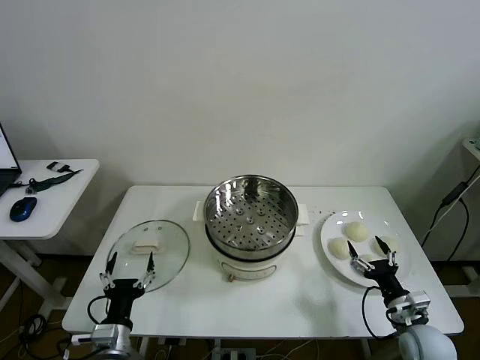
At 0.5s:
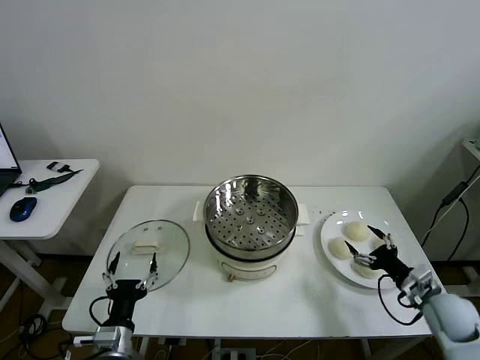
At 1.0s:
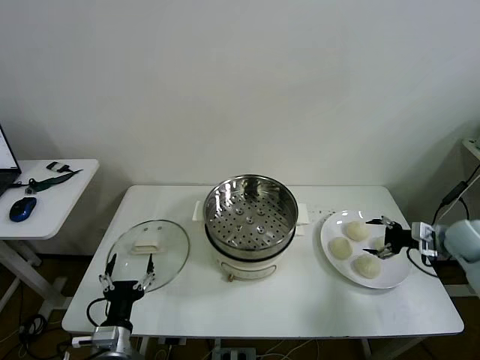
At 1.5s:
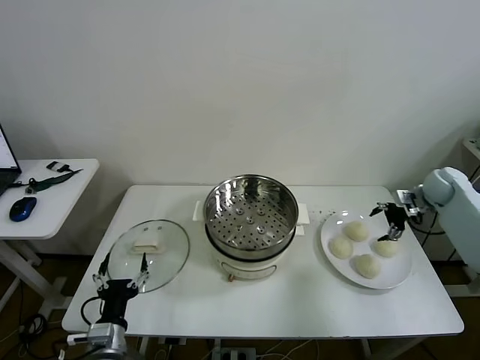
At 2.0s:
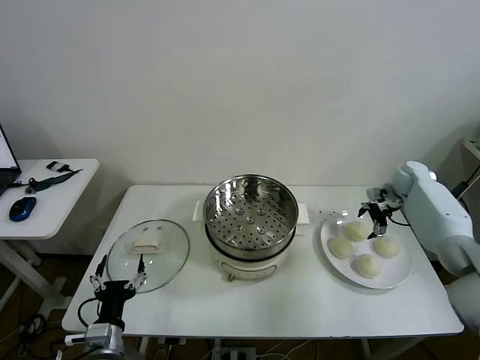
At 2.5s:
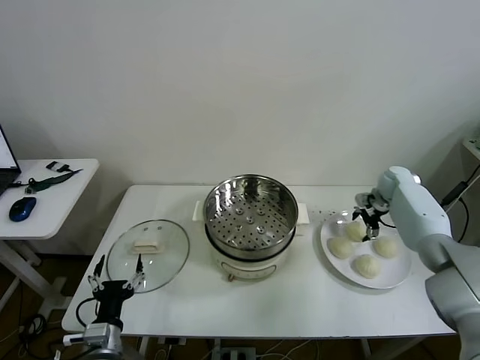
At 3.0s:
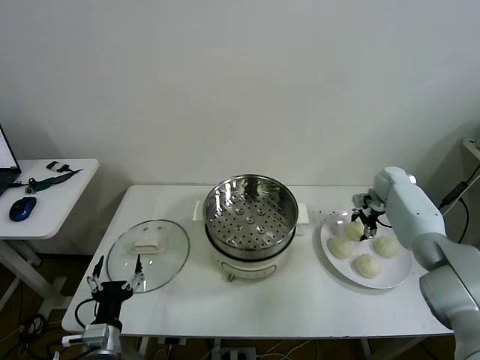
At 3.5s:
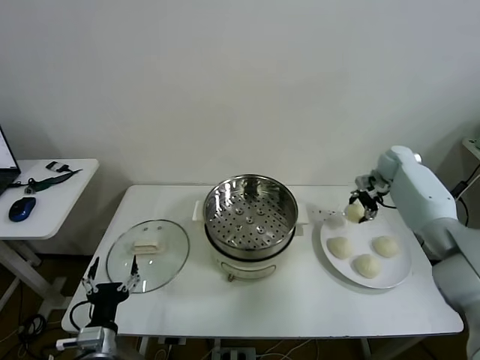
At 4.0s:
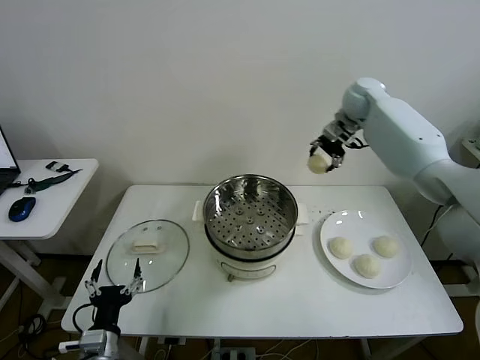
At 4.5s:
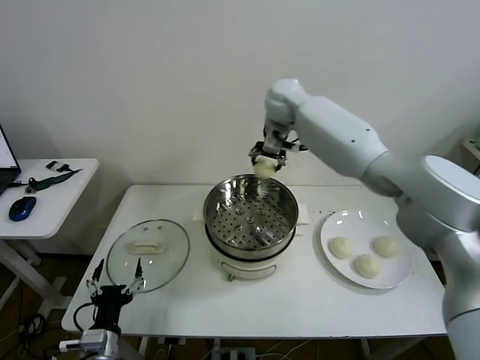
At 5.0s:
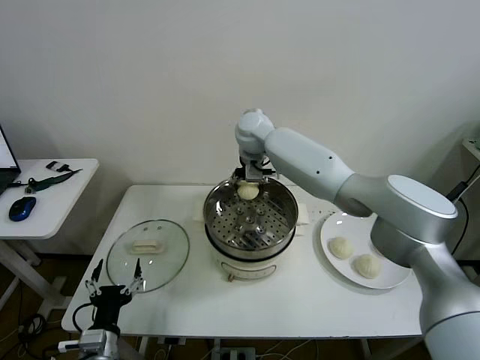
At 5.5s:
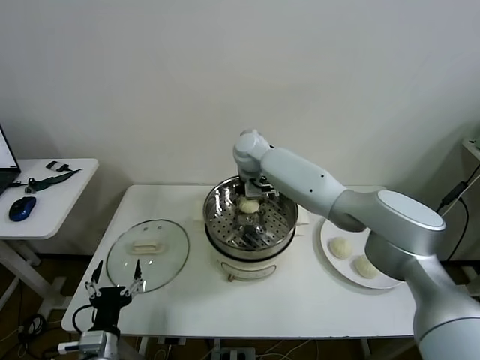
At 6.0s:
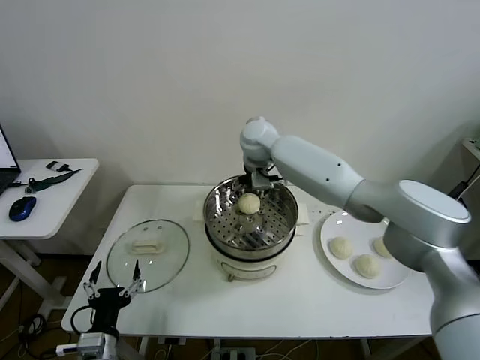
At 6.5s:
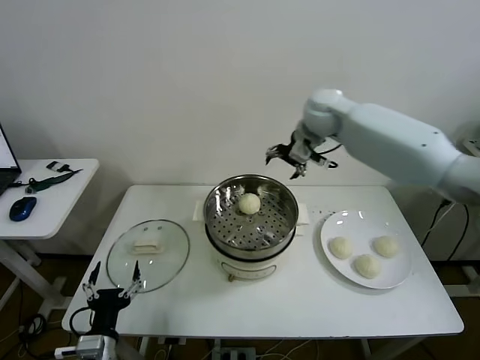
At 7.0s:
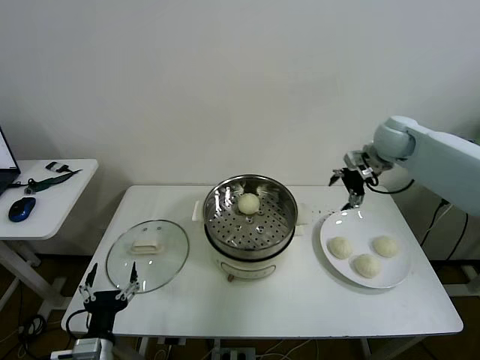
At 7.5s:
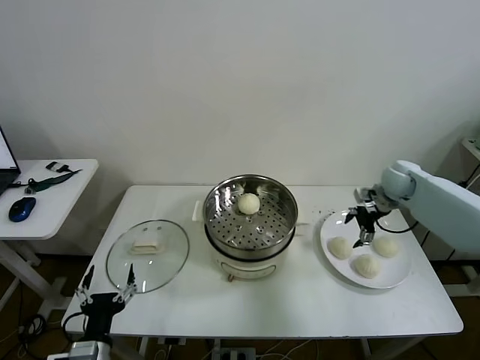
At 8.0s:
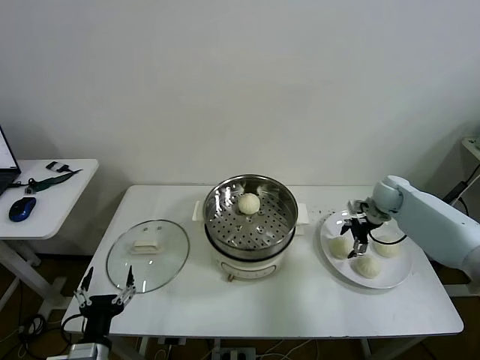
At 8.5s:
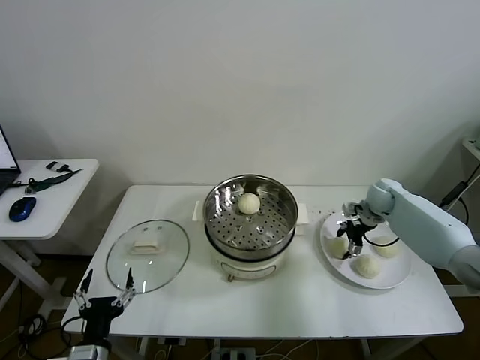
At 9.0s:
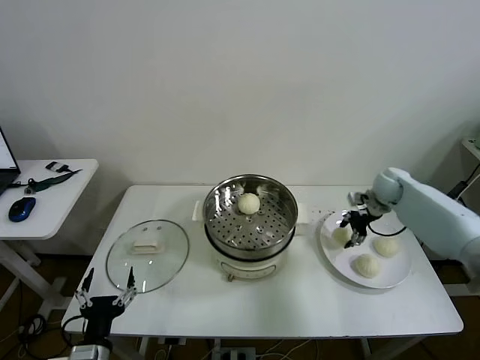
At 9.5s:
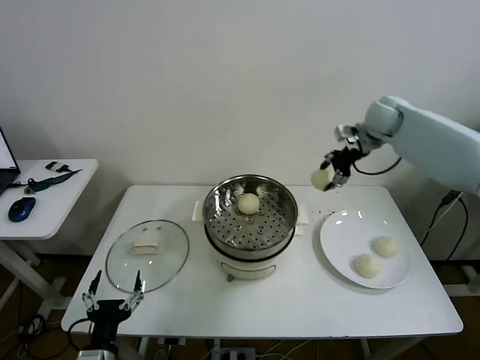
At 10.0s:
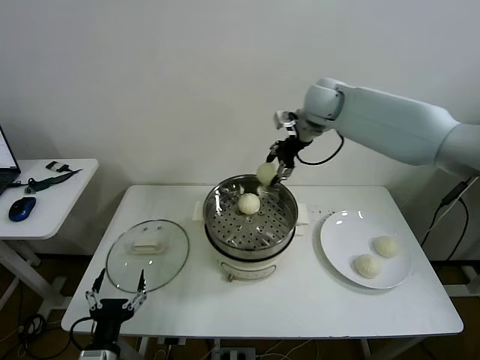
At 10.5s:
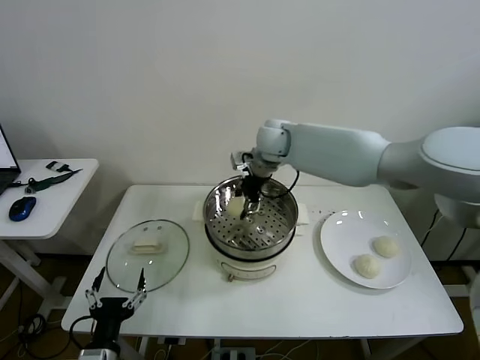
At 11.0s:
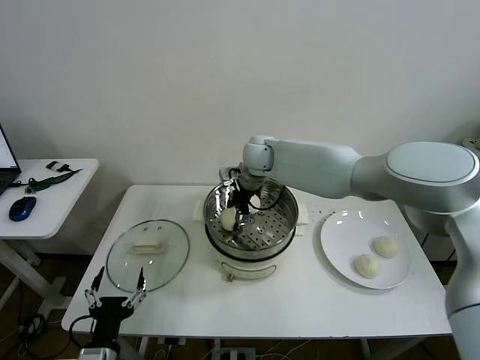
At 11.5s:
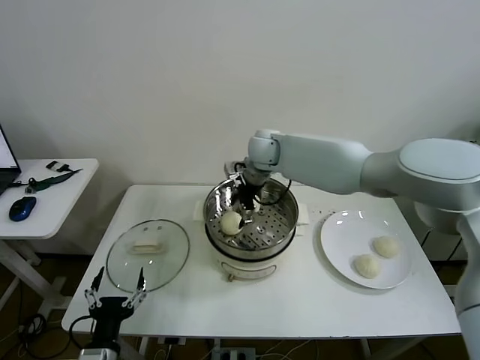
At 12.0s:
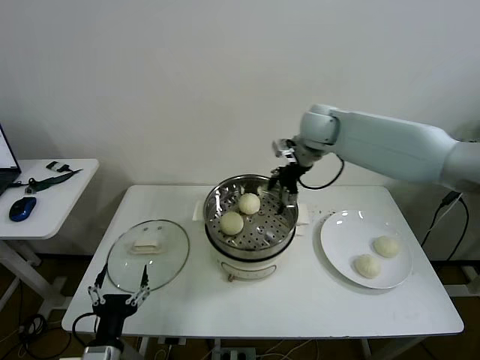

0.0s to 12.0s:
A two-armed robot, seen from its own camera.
Task of the whole recording: take steamed baozi put them in steamer then cover it.
Step, 0.0s to 3.0s: Grasp the baozi in the plate with right gripper.
Step, 3.5s to 5.5s: Place the baozi on the steamer with right gripper.
Step, 6.0s to 8.5s: Grasp the baozi in the plate with right gripper.
Step, 9.0s to 11.0s: Place the baozi on the steamer with right gripper.
2.0s to 4.0s: The right gripper moves upward and to the left, approximately 30 cm, and closes.
4.0s to 6.0s: The right gripper travels to the left by about 20 cm, and opens up.
6.0s to 8.0s: The right gripper travels to the right and downward by some 40 cm.
8.0s to 10.0s: The right gripper travels upward and to the left by roughly 35 cm, and closes its fingers.
10.0s to 12.0s: The right gripper reaches approximately 10 cm to the left, then returns, and opens up.

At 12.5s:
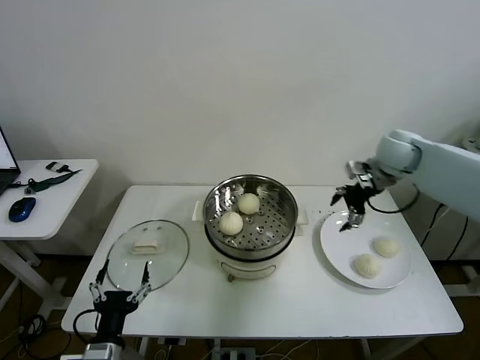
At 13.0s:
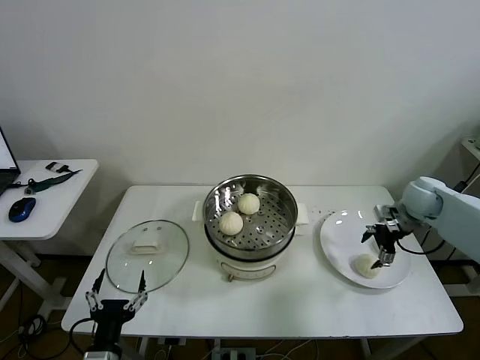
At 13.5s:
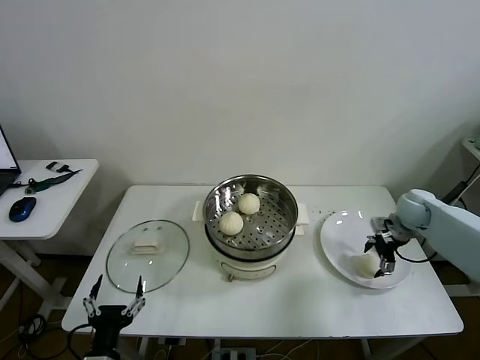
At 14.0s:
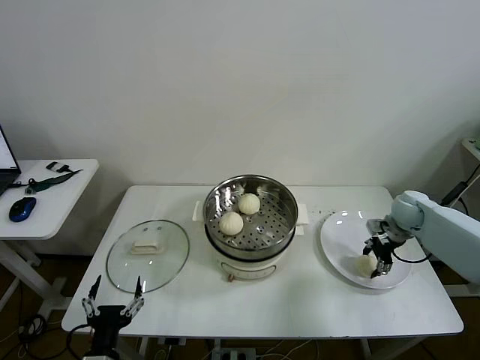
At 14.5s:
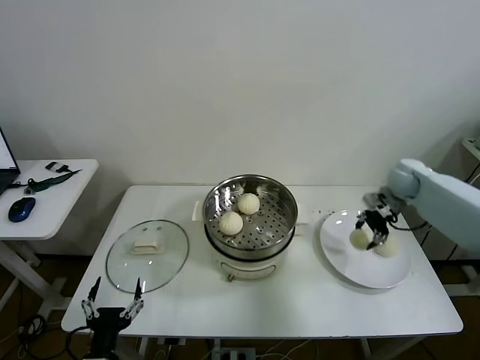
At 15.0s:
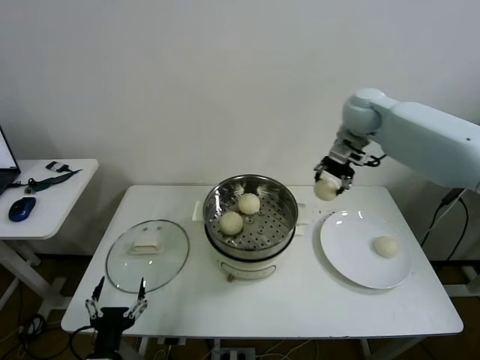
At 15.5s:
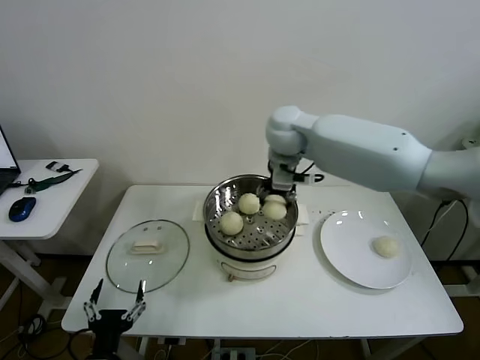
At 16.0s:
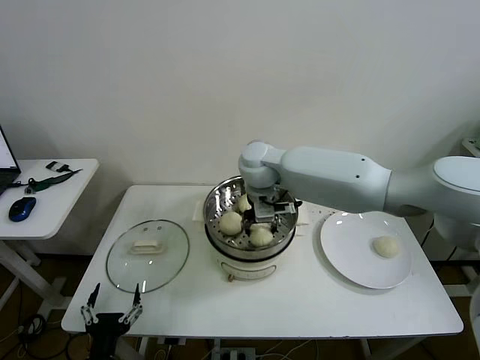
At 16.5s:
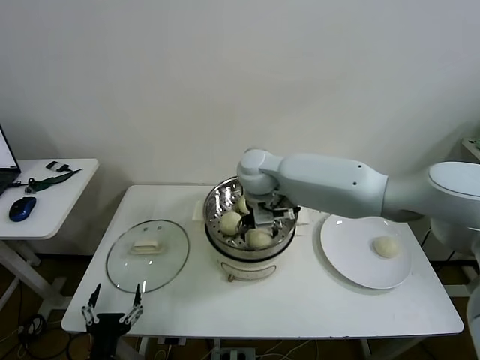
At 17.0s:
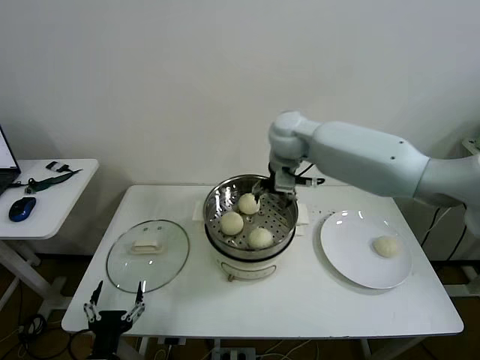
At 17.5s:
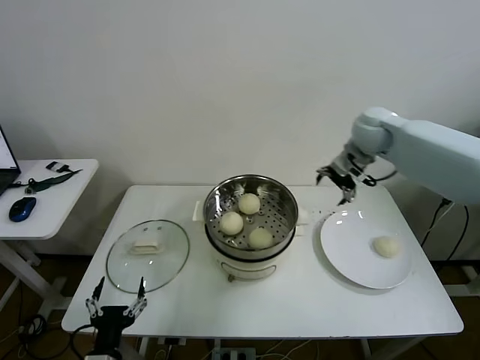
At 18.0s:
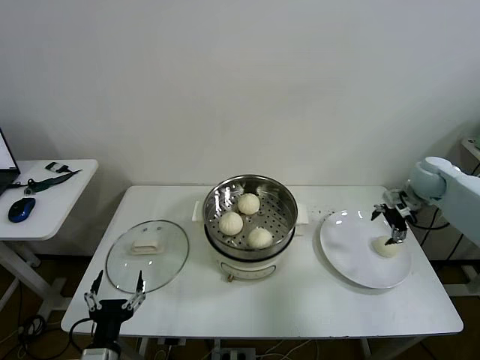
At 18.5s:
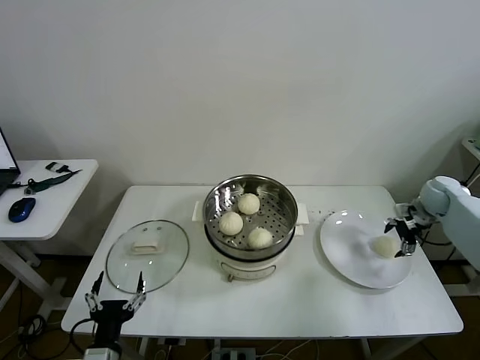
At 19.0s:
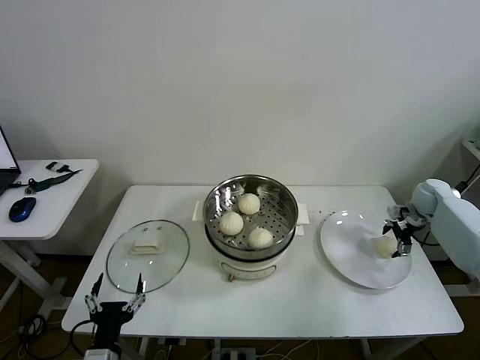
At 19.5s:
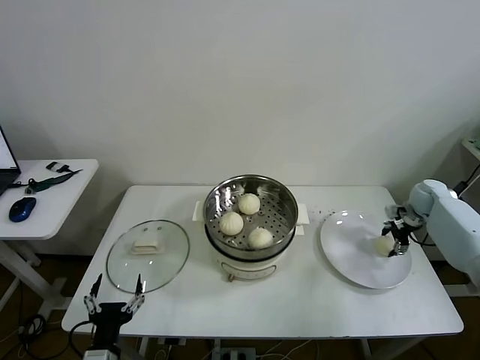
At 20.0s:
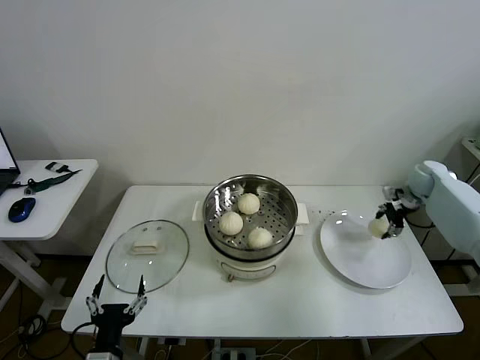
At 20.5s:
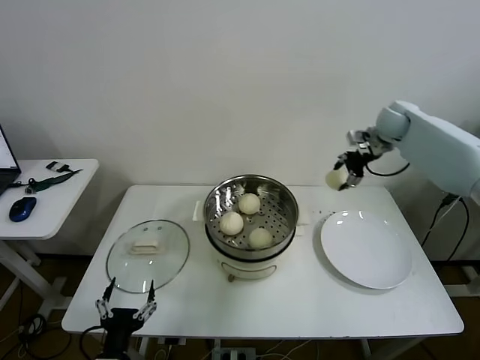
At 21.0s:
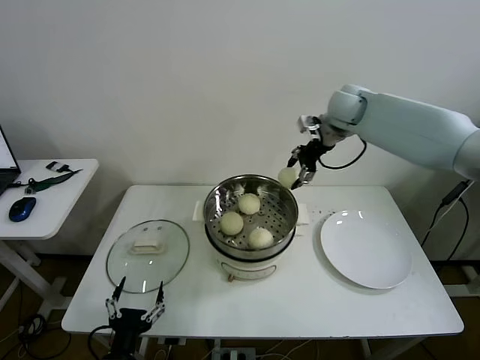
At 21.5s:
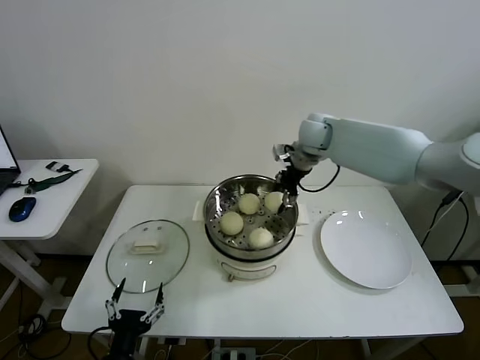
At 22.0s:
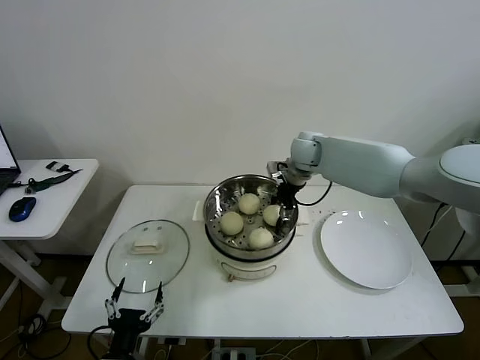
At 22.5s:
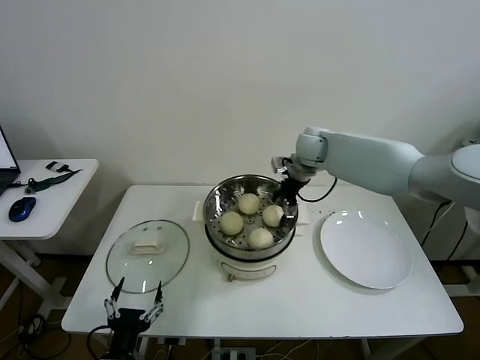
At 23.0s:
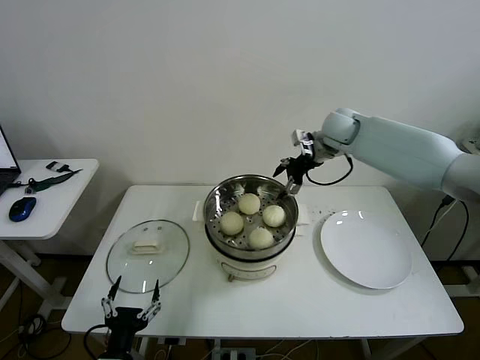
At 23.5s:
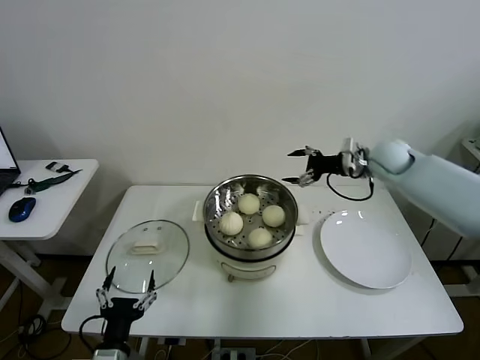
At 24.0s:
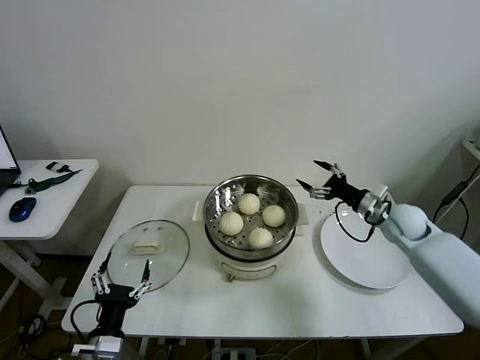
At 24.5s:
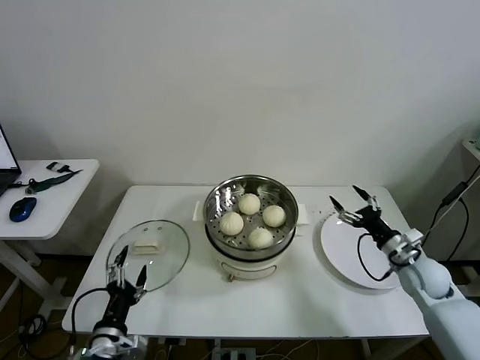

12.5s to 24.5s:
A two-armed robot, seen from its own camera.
Task of the whole recording: take steamed baozi put them in steamer then cover it.
Step, 14.0s to 16.0s: Place the baozi on the steamer with right gripper.
Step, 17.0s to 19.0s: Grasp the baozi in the plate with right gripper.
Step, 20.0s to 22.0s: Place the baozi on the steamer with right gripper.
12.5s to 14.5s: The right gripper heads downward, covering roughly 5 cm, and closes up.
14.5s to 16.5s: The right gripper goes some 35 cm to the left, and opens its fingers.
16.5s to 18.5s: The right gripper travels to the right by roughly 50 cm.
18.5s to 20.5s: The right gripper moves upward, to the left and forward, about 25 cm, and closes up.
20.5s to 22.5s: The right gripper heads to the left, covering some 20 cm, and opens up.
22.5s to 24.5s: The left gripper travels forward by roughly 5 cm. The right gripper moves backward, to the right and downward, some 40 cm.

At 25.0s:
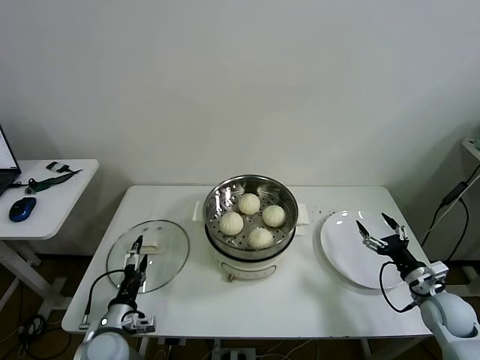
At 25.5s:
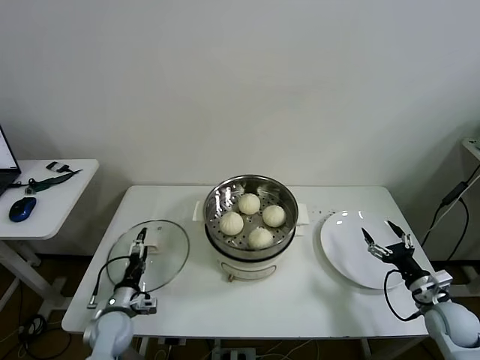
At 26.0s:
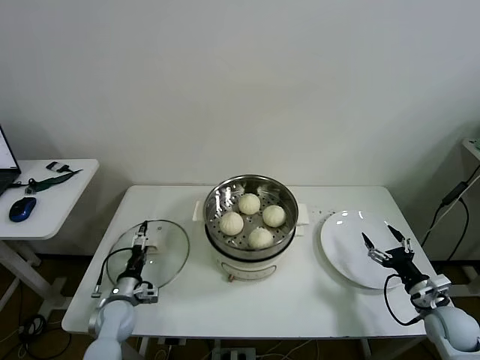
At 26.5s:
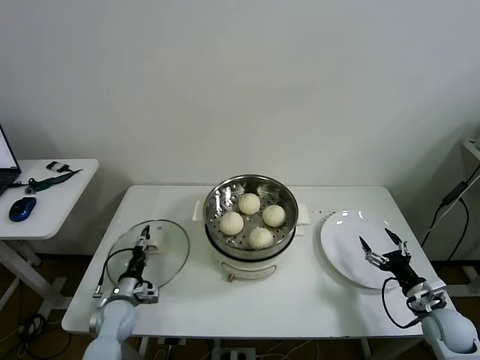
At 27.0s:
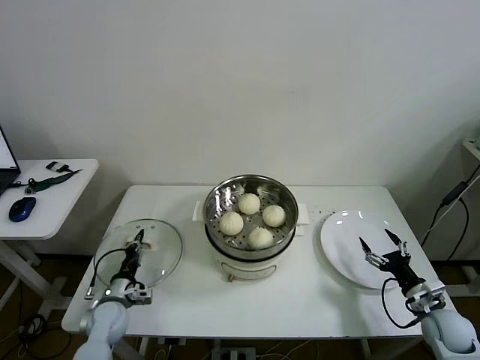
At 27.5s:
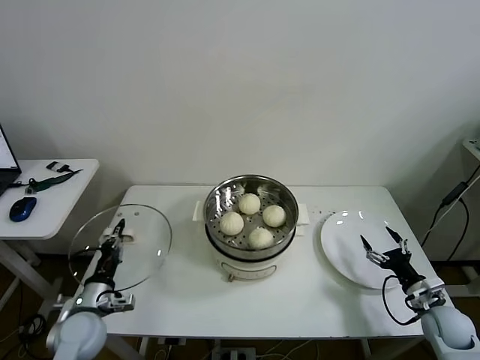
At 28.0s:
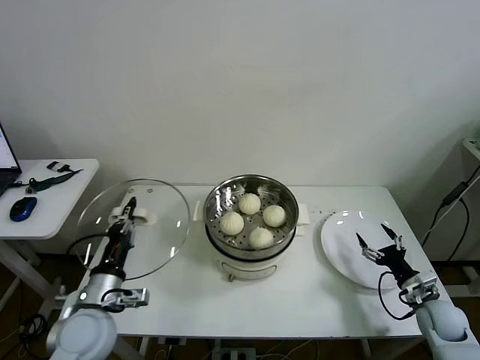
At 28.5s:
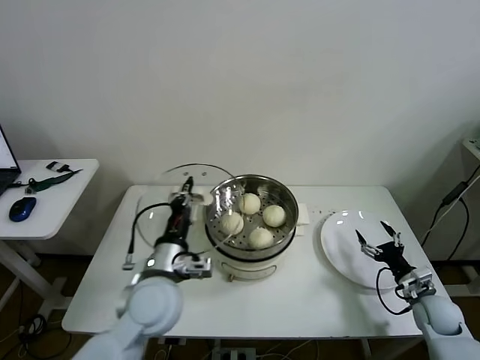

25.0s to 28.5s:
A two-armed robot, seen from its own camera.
Task of the whole recording: take steamed baozi put them in steamer then cover it.
Step, 25.0s to 27.0s: Grasp the pot lid with left gripper.
25.0s to 27.0s: The left gripper is displaced forward by approximately 10 cm, and closes its fingers.
27.0s to 28.5s: The left gripper shifts approximately 30 cm upward and to the right.
